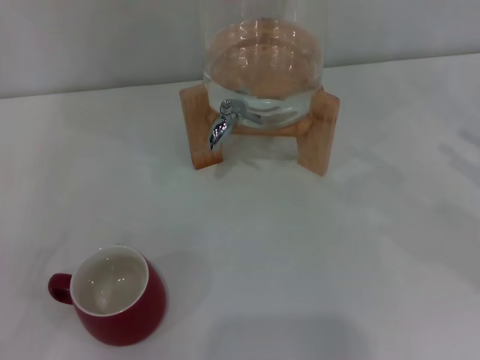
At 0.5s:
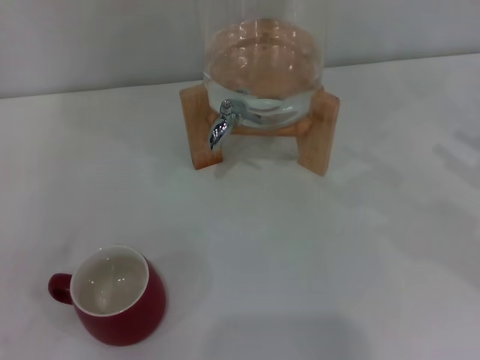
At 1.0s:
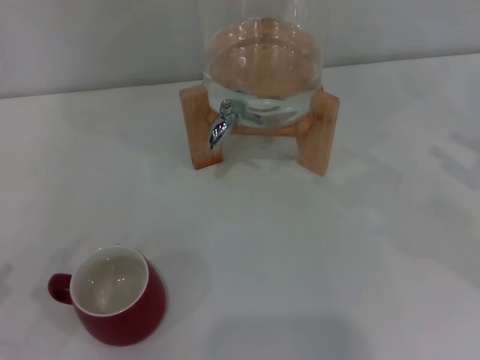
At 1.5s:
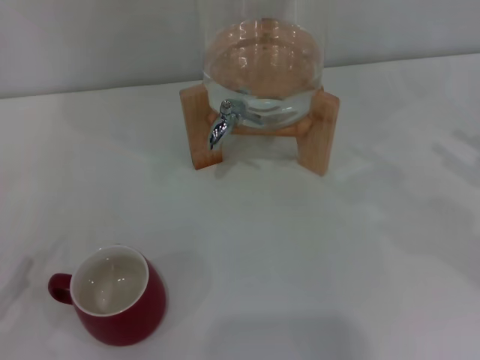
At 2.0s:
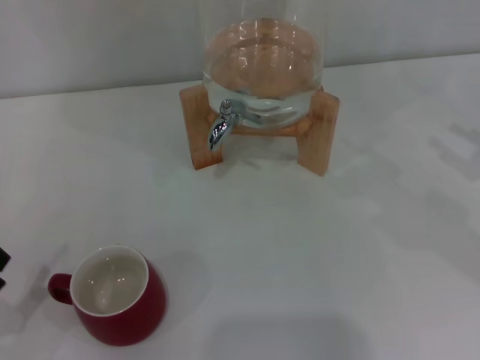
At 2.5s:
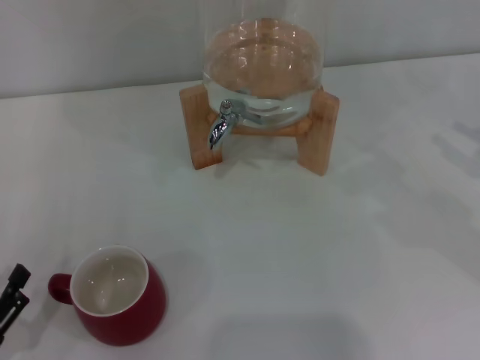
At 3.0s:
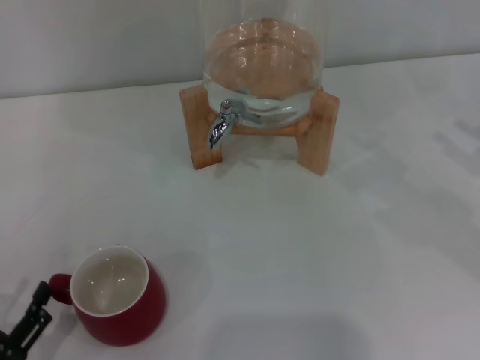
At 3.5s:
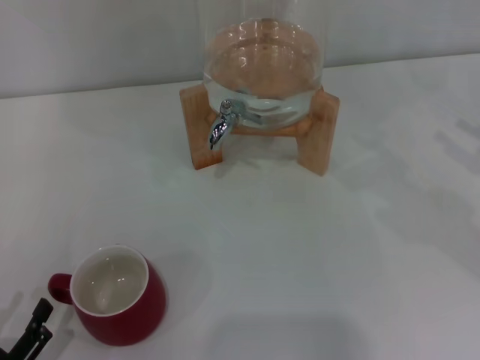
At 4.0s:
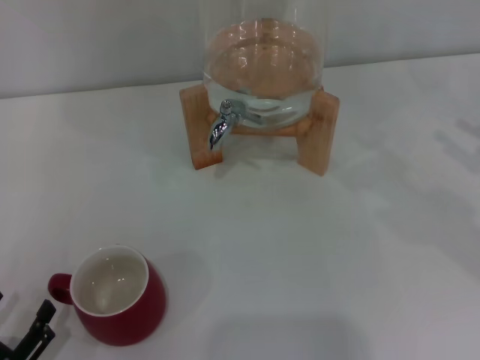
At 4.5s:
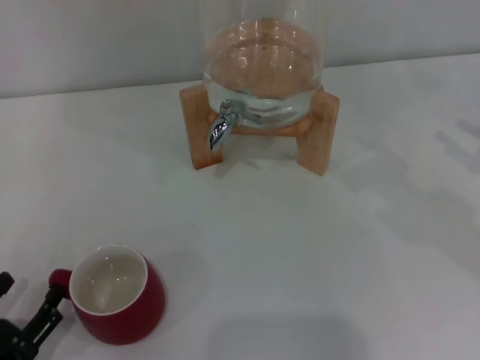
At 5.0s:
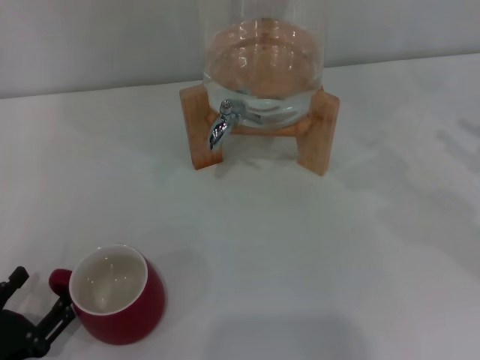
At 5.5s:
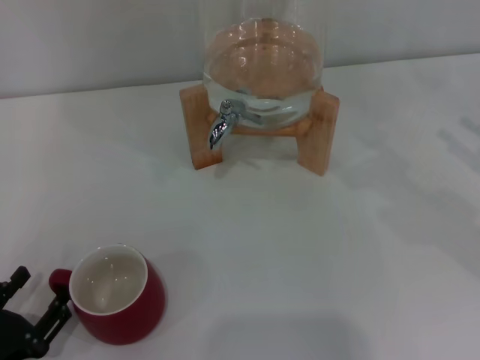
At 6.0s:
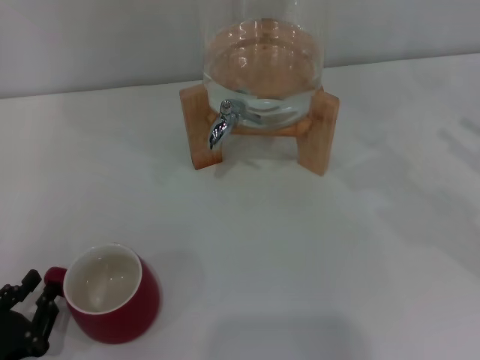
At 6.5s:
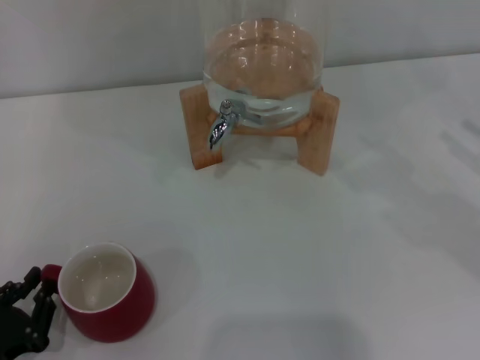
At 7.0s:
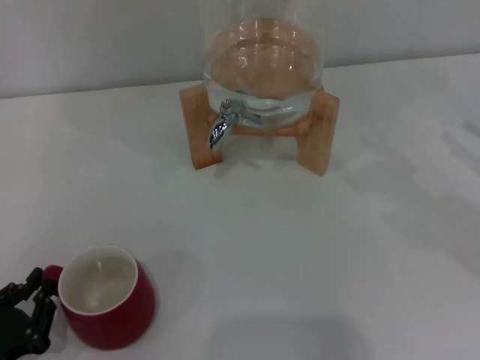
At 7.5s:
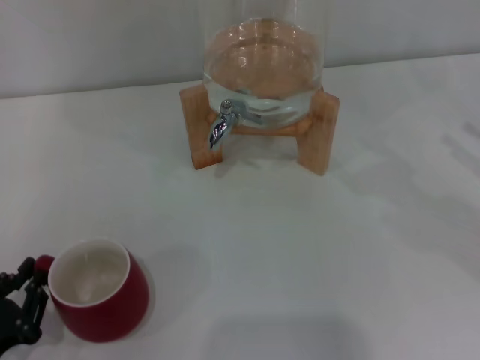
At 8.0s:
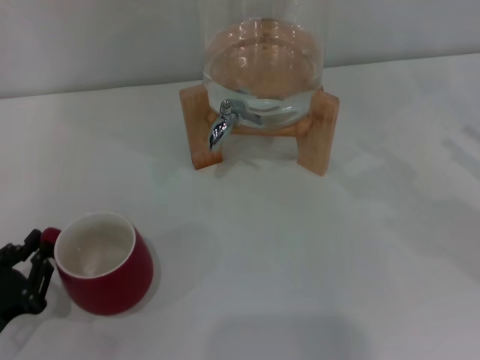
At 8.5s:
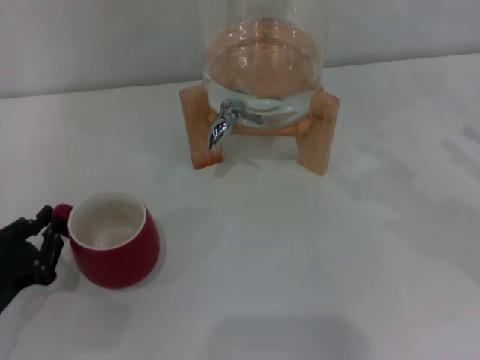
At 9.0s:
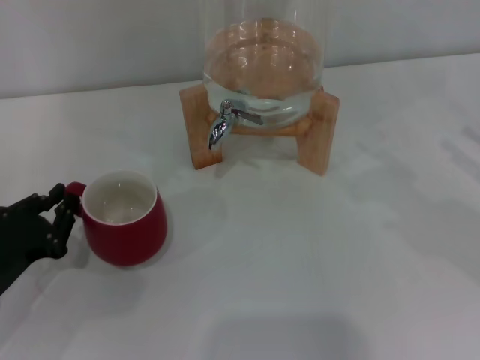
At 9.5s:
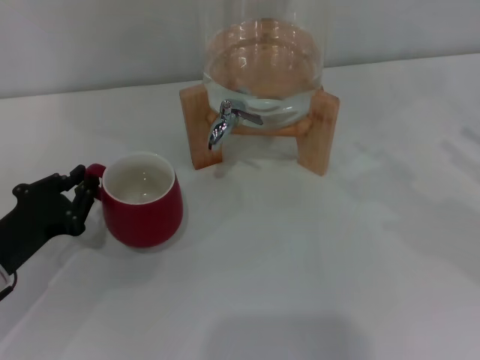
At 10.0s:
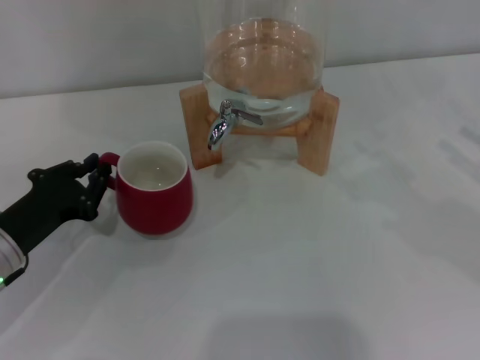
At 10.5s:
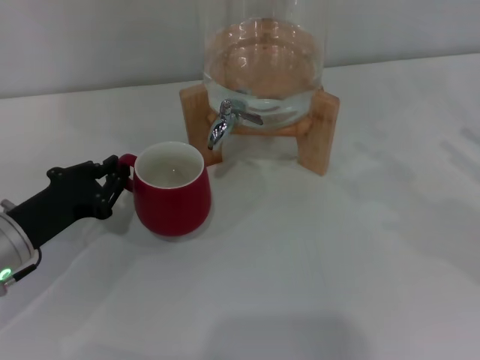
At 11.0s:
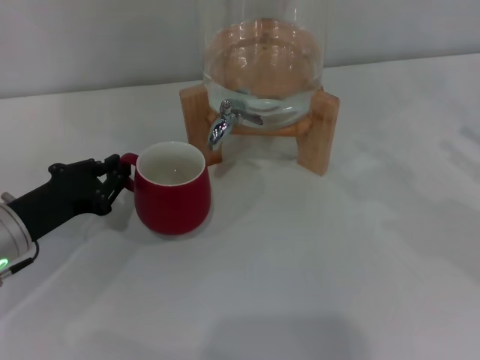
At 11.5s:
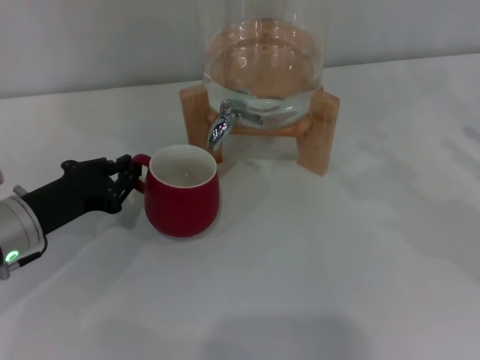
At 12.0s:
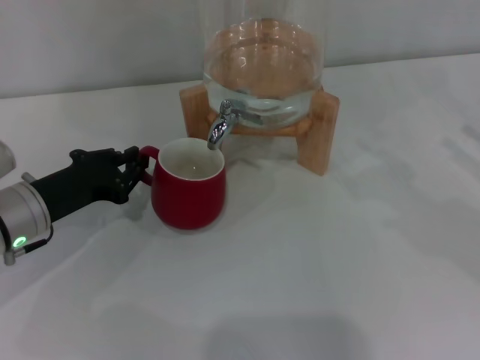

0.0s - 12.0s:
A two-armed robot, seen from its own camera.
Task of the whole recording: the left gripper pick up the red cup and place it horizontally under the faucet, the right gripper turn on the faucet to fill the cup, and then turn off the faucet.
2.0s - 4.0s: The left gripper changes place by about 5 cm.
4.0s - 6.0s: The grippers move only a little.
6.0s - 8.0s: The left gripper closes up.
8.0s - 10.0s: The left gripper shifts roughly 10 cm forward.
10.0s - 12.0s: The left gripper ends up about 5 cm from where it was.

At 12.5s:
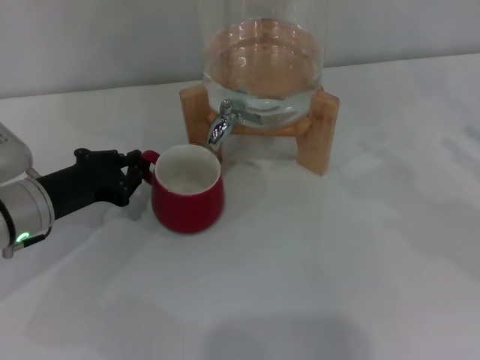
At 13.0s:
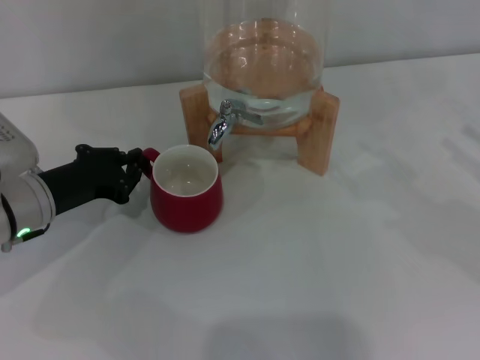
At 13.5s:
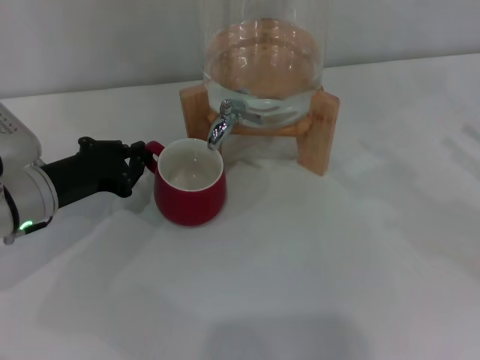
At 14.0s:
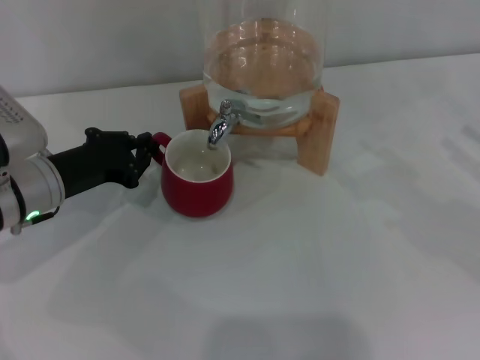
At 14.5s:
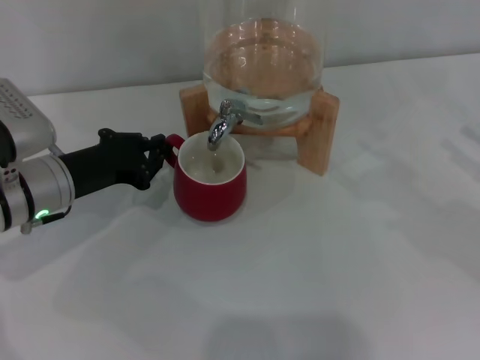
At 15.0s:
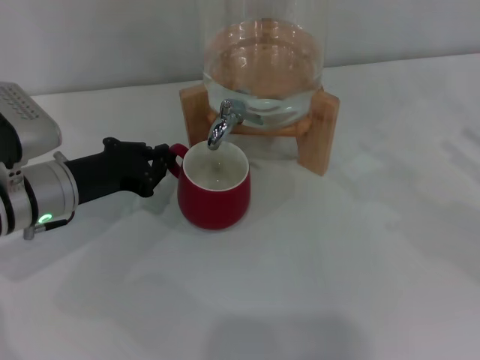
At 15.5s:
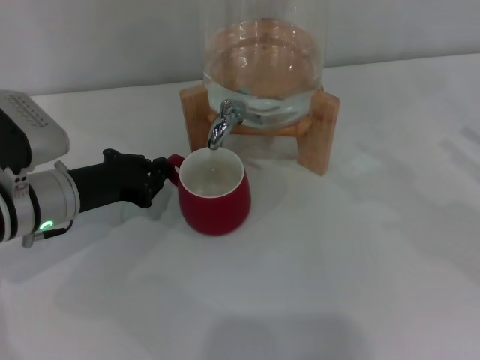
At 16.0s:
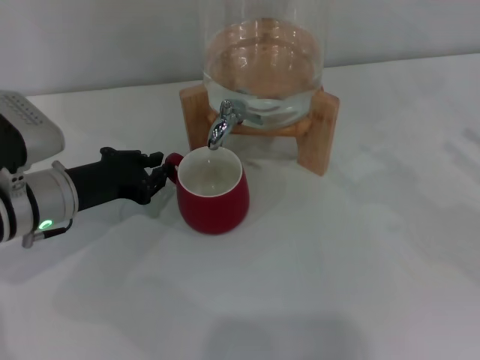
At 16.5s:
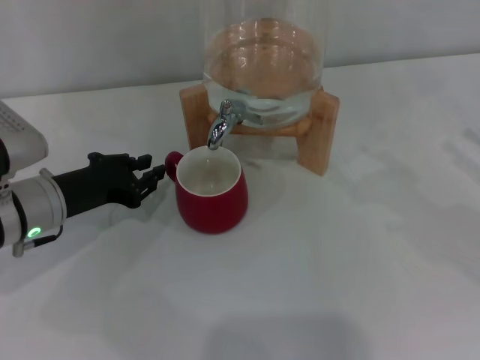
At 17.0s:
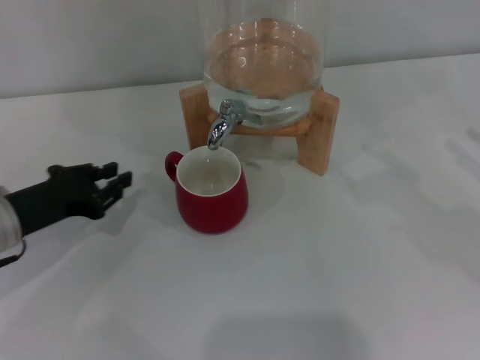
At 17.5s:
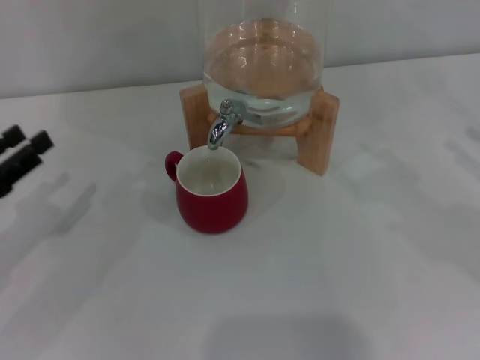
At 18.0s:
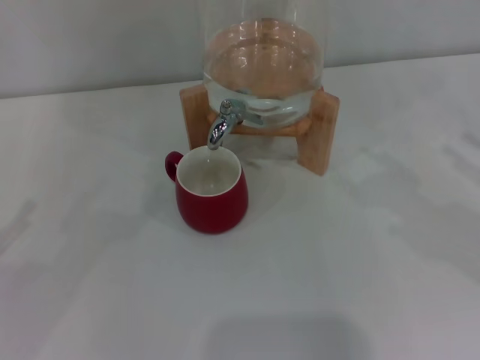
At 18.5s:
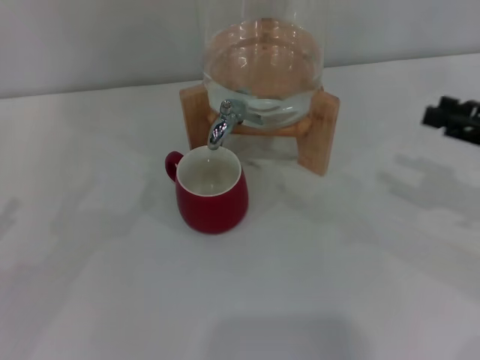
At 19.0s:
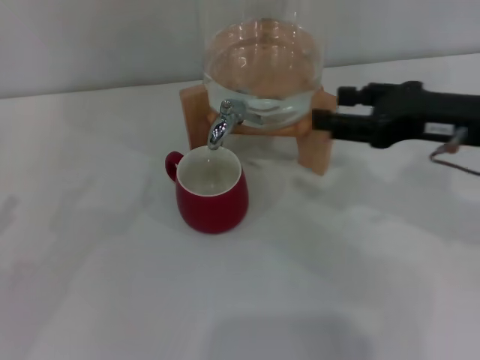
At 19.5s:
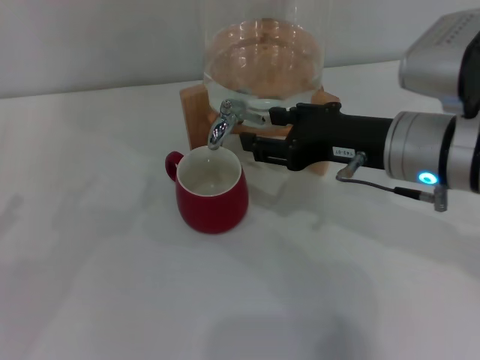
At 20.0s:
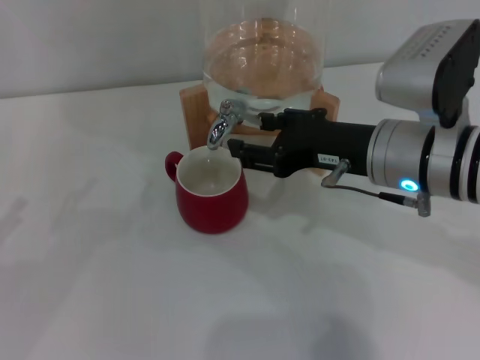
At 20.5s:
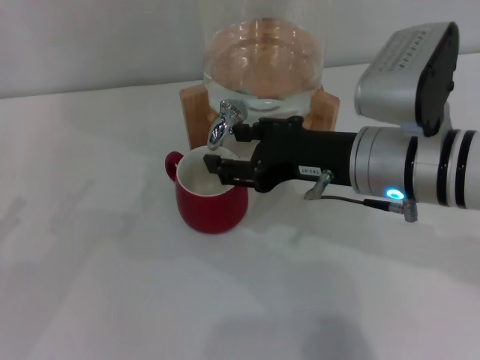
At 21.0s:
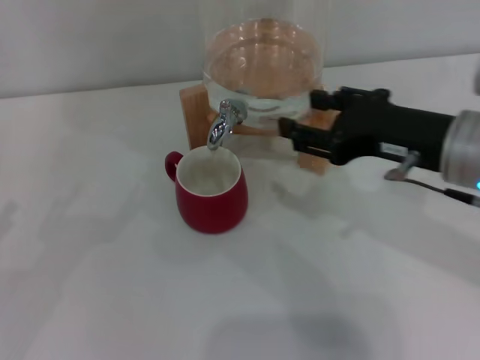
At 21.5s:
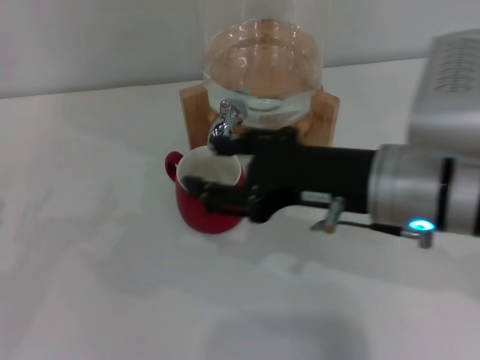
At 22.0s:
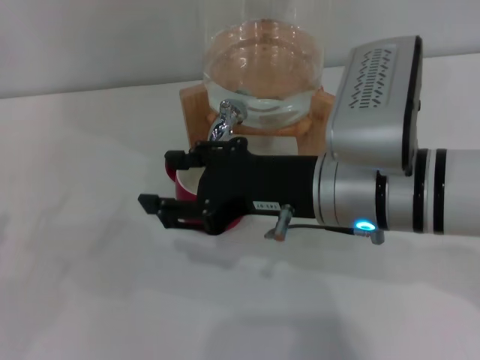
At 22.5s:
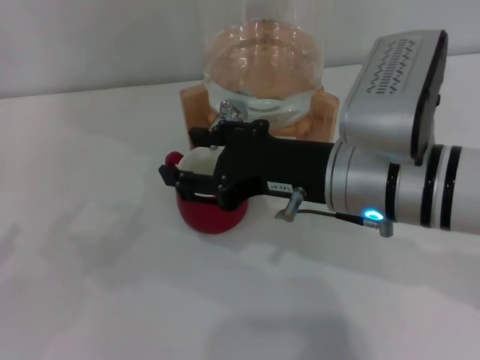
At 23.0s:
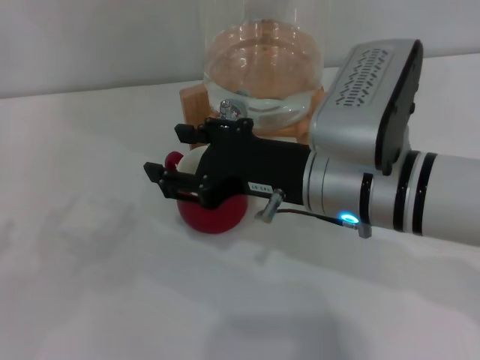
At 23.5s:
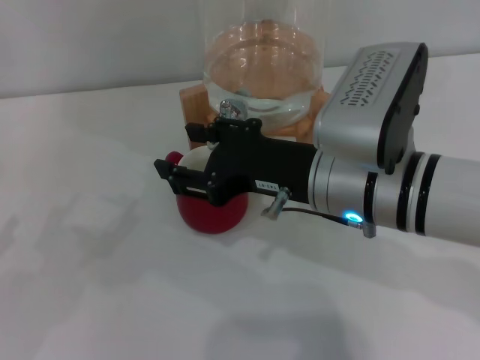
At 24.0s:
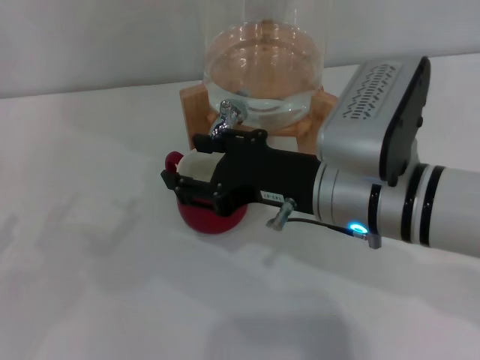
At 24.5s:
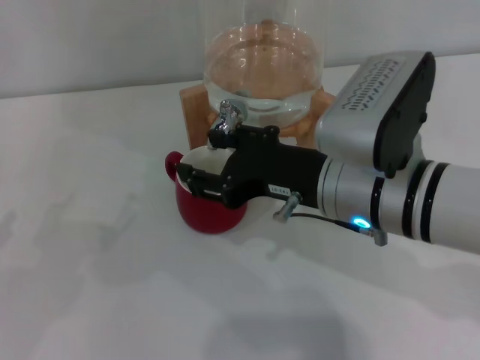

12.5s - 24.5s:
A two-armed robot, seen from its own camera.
Task of the whole recording: the left gripper pick up the red cup and place it horizontally under the faucet, the right gripper turn on the faucet to fill the cup, and then turn off the faucet.
Step, 12.5s - 16.5s: Move the cup beneath the water dispenser nozzle with the left gripper.
12.5s - 16.5s: The grippers stay close to where they were, moving slightly.
16.5s - 18.5s: The left gripper moves to the left and backward, roughly 20 cm, and opens up; the right gripper goes some 5 cm to the left.
18.5s - 20.5s: The right gripper goes some 20 cm to the left.
20.5s - 22.5s: The right gripper reaches roughly 5 cm to the right, then returns.
22.5s - 24.5s: There are only small adjustments of the grippers.

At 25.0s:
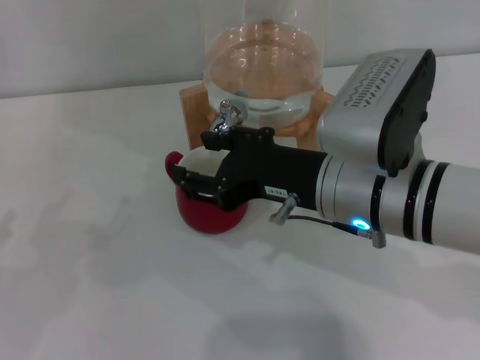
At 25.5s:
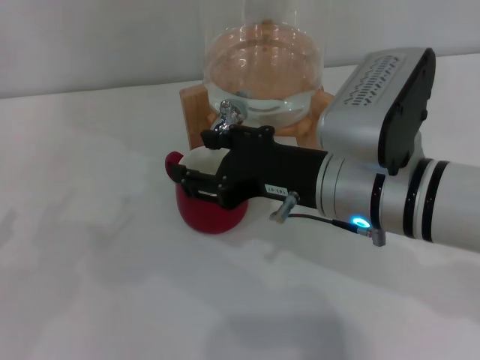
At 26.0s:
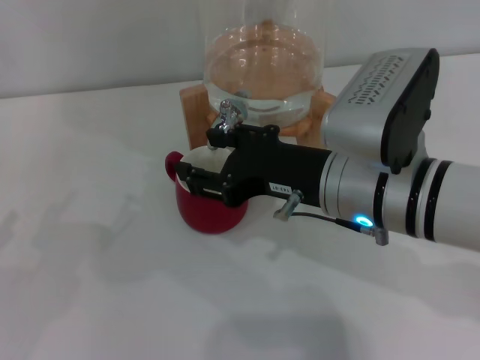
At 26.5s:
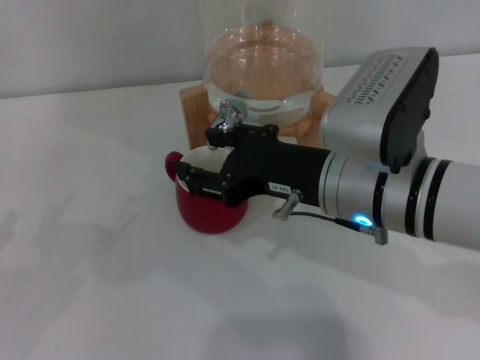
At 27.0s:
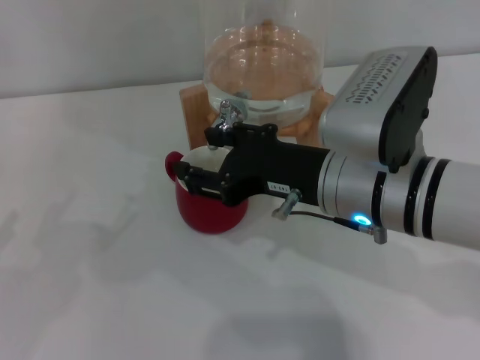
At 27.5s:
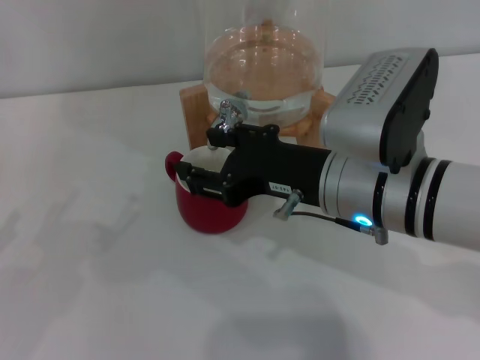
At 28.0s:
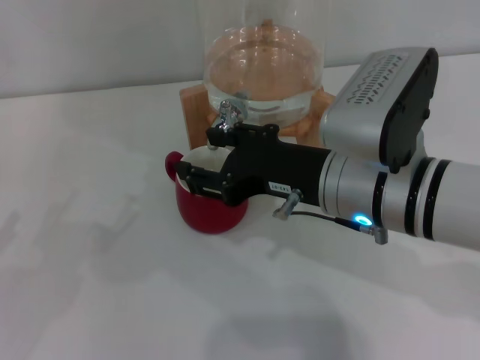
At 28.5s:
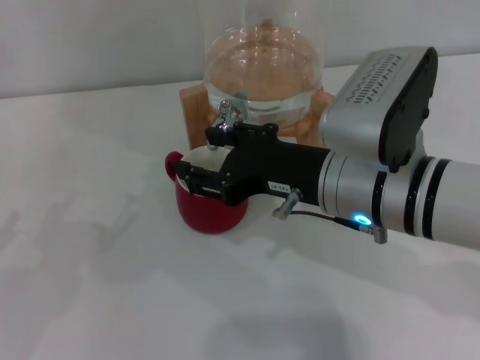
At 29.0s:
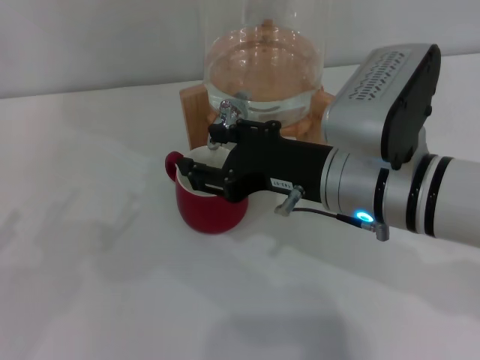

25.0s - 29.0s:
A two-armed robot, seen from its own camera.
Task of the whole recording: the left gripper pick up the red cup and place it horizontally under the faucet, the right gripper turn on the faucet to fill the cup, and then turn off the faucet.
25.0s - 29.0s: The two grippers keep their place.
